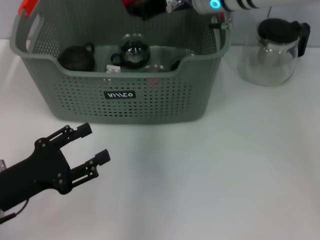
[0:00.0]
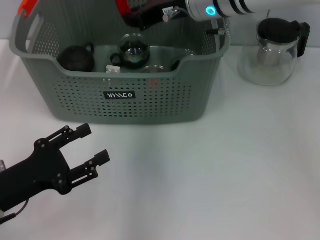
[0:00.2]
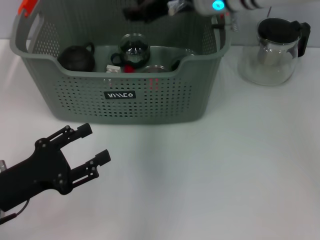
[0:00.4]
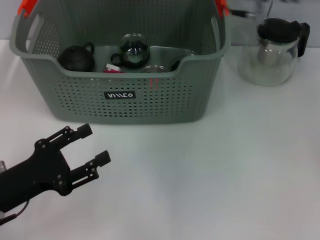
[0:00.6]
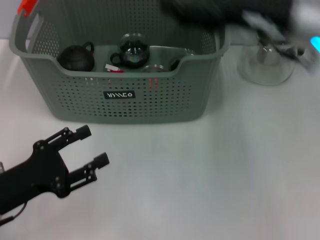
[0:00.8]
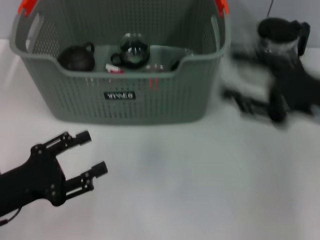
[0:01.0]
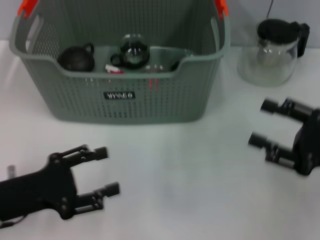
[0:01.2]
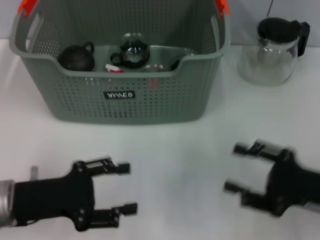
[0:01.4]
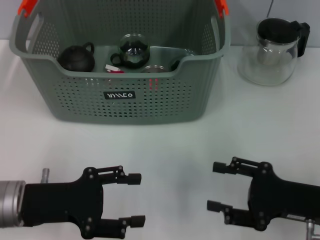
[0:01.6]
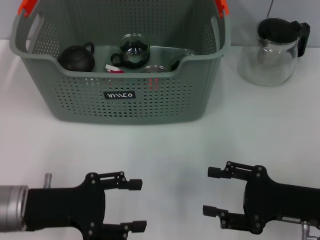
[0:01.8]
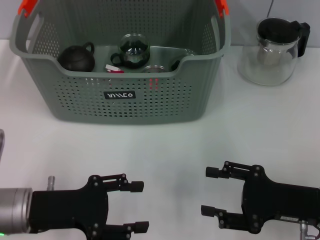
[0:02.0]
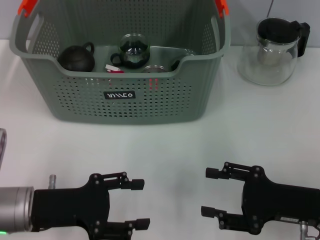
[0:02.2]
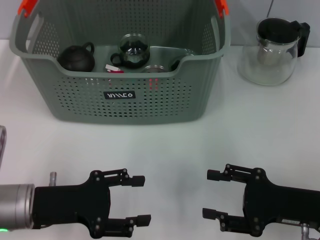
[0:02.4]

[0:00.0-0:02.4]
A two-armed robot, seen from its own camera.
Task of the whole recording: pick up the teacup on the table and place it into the storage bin, pick up the block on the table and place it into the storage bin.
0:00.0 to 0:01.2: The right gripper is displaced to the right, backward and downward by some 35 cm, and opens.
0:01.2 to 0:02.4: The right gripper heads downward, covering approximately 5 cm.
